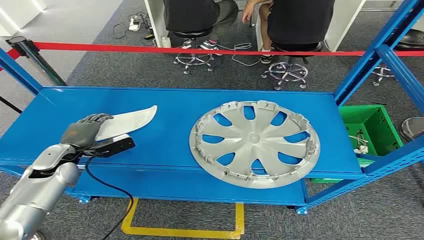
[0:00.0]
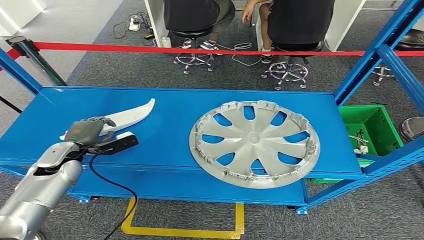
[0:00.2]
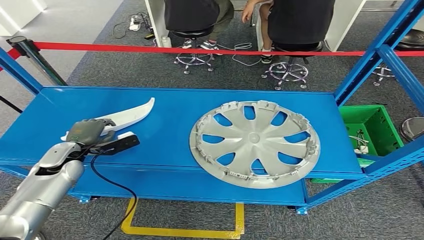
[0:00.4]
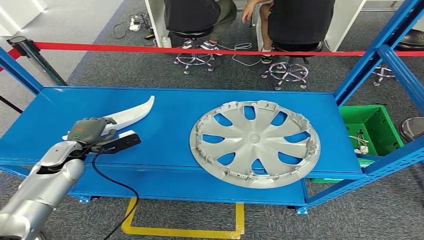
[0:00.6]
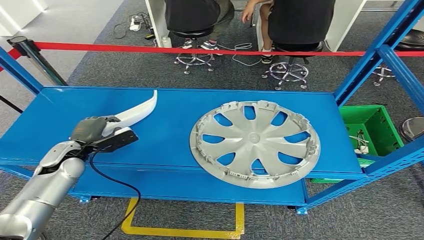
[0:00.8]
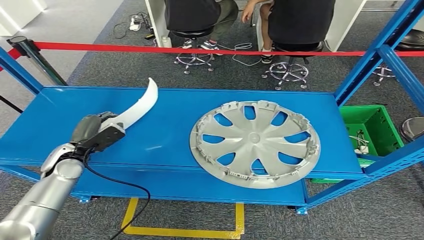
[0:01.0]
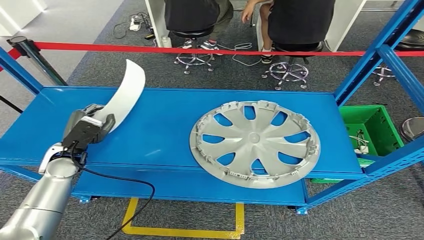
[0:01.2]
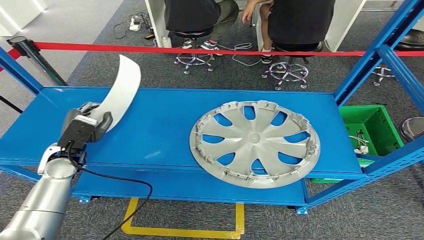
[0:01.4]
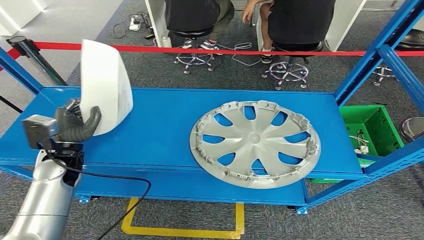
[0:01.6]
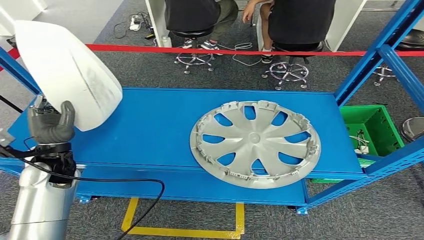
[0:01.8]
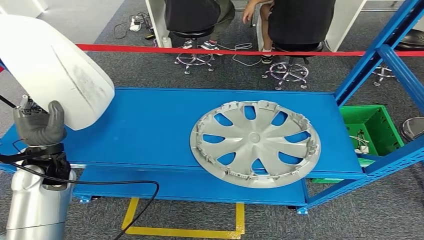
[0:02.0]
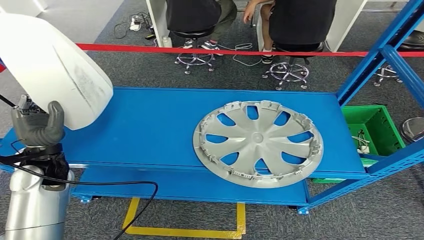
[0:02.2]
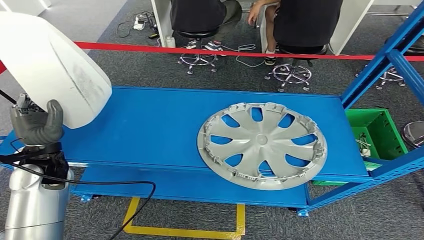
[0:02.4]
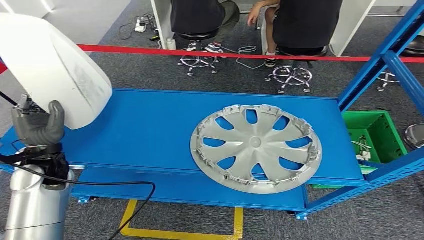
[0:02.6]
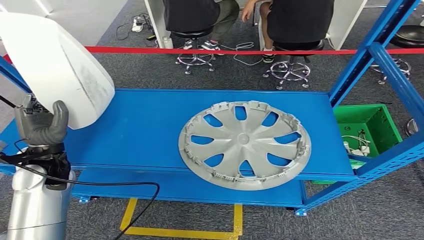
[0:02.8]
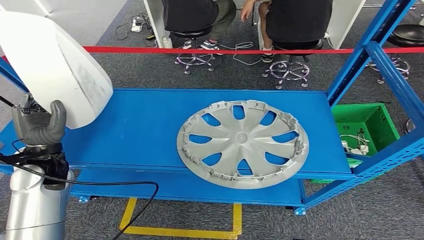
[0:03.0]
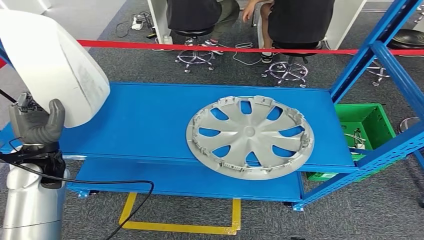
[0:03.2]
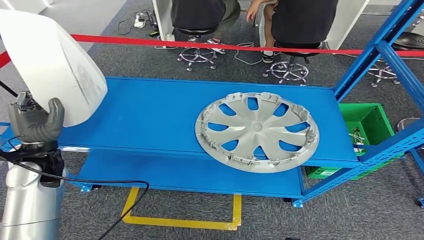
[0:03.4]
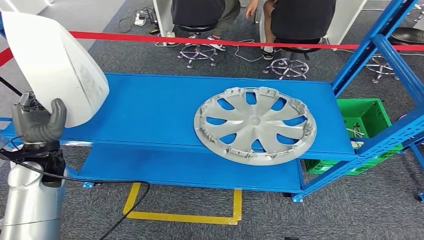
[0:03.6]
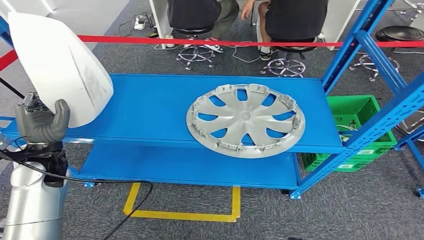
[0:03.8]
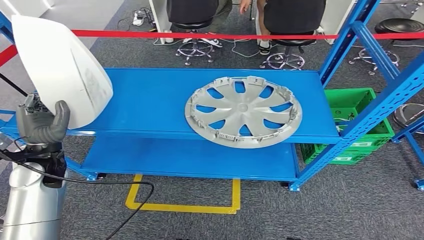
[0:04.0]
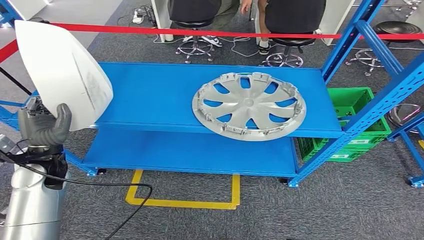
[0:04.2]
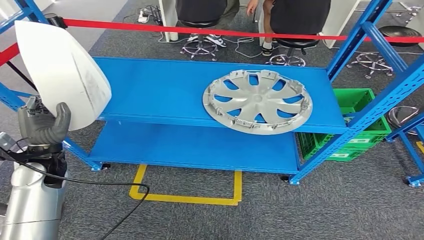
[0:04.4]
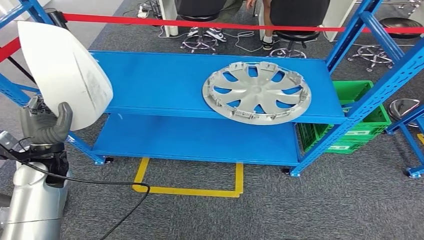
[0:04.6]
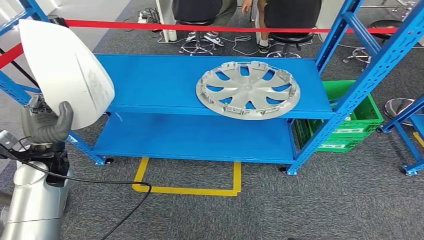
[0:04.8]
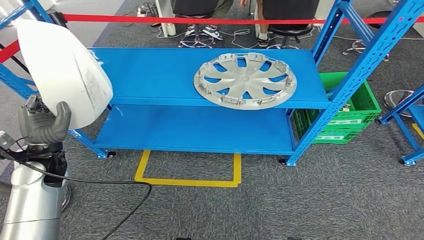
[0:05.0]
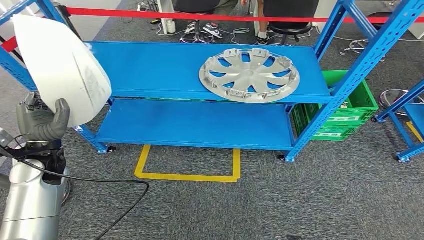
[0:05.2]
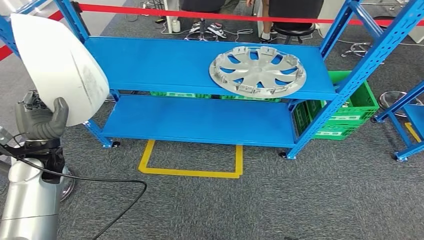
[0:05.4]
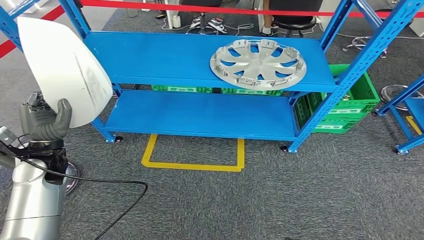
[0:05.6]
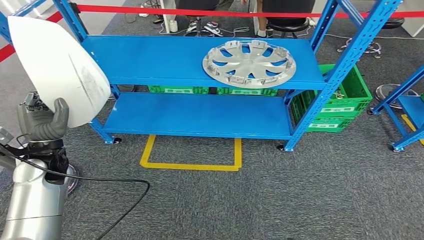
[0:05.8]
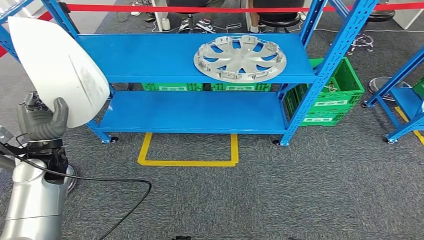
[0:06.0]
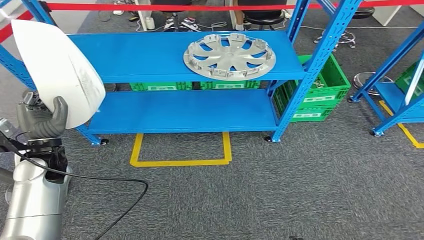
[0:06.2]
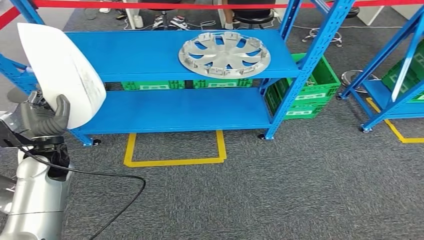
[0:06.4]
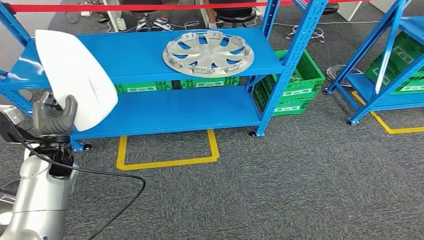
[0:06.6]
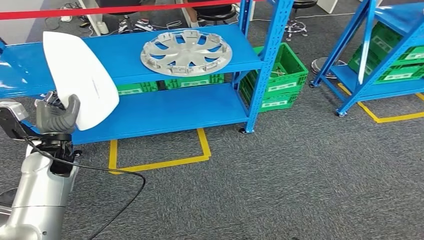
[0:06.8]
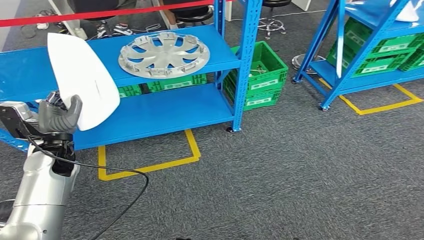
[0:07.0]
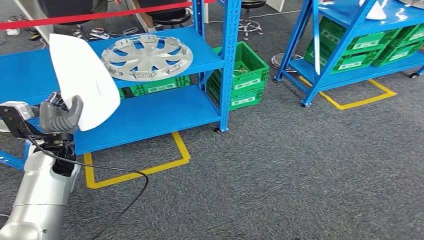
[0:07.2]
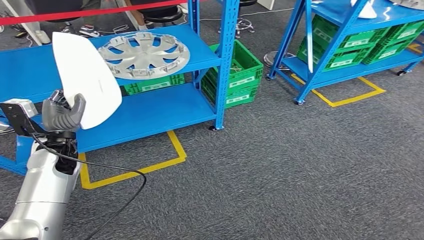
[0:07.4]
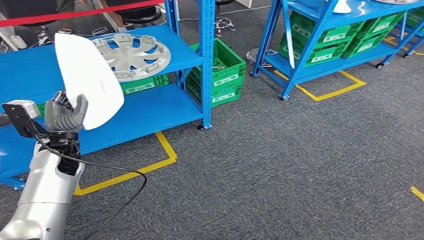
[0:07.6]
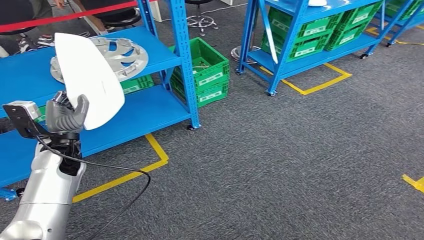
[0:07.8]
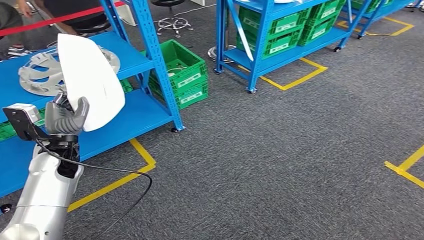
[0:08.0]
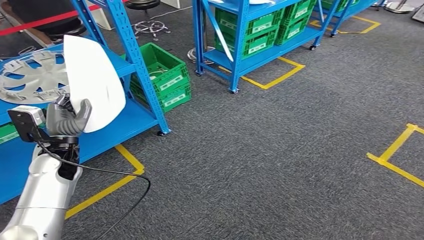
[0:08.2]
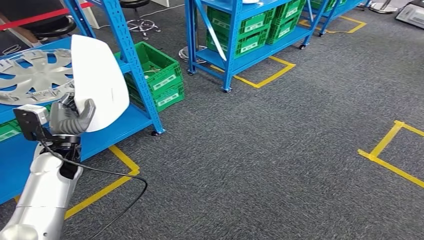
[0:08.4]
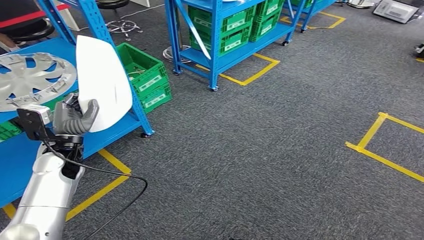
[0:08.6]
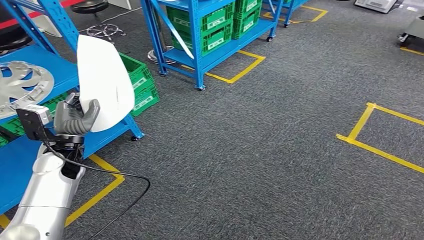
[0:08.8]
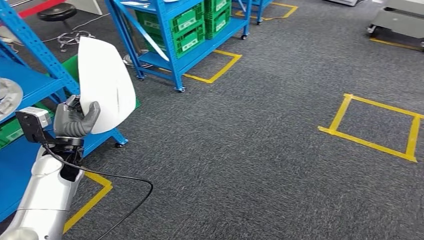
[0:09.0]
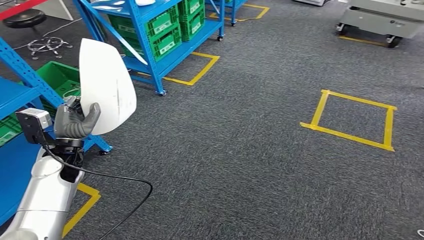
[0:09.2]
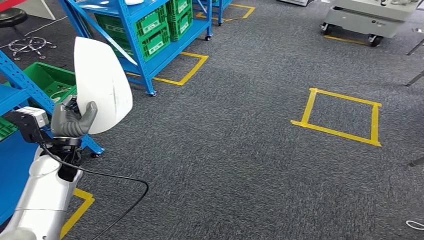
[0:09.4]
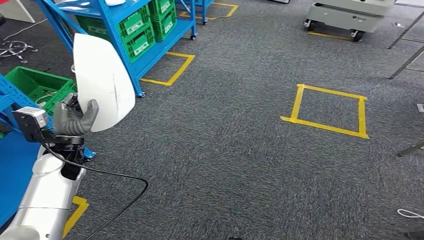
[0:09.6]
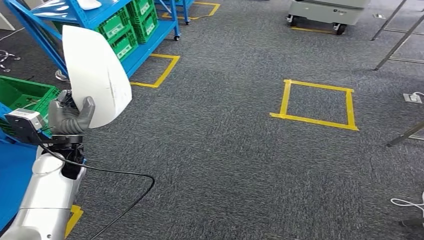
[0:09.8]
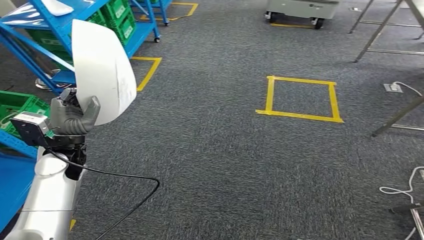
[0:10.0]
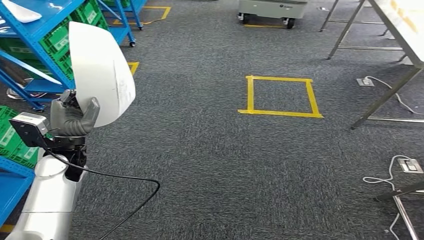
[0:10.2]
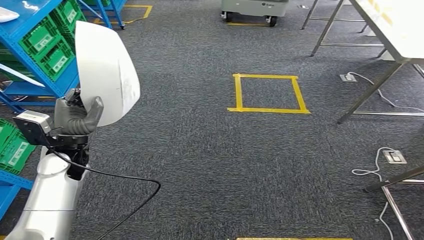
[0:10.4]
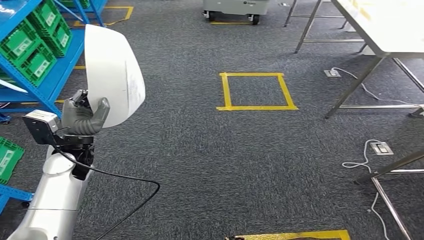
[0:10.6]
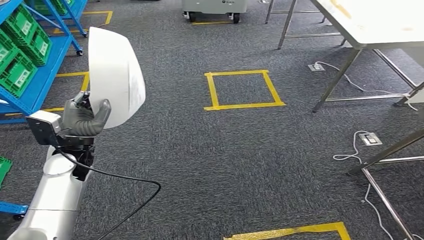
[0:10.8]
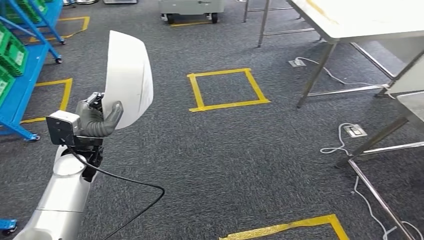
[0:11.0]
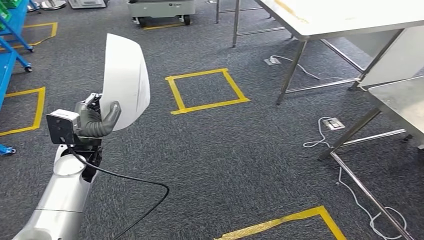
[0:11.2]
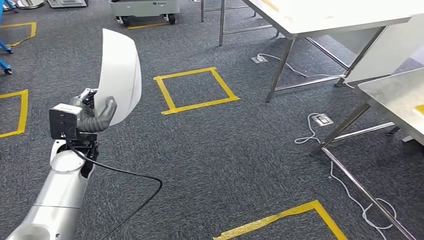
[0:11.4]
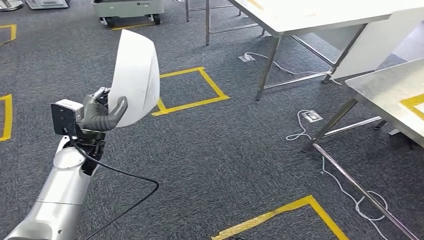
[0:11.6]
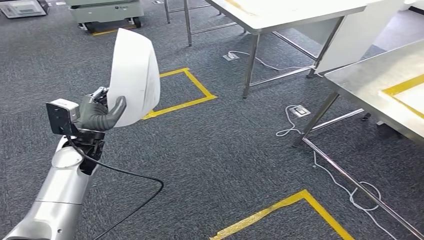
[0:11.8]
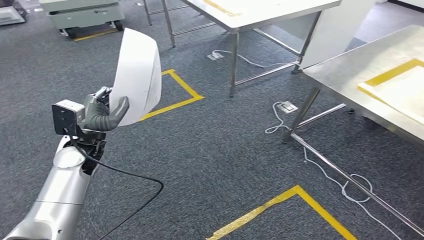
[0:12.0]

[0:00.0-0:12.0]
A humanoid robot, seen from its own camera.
Step, 0:00.0 to 0:03.2: Pick up the small component from the shelf.

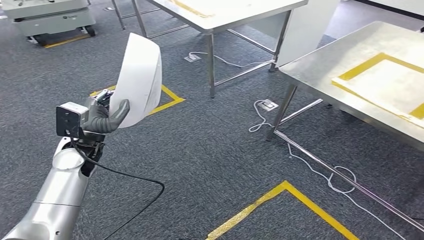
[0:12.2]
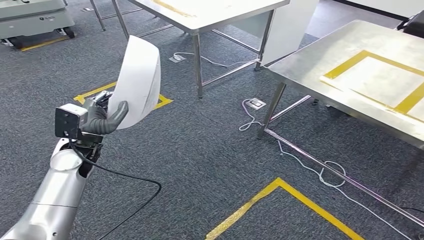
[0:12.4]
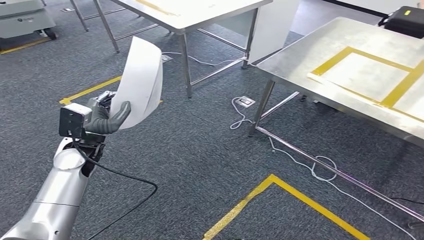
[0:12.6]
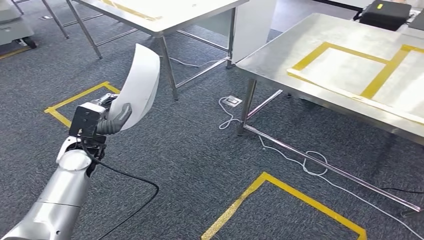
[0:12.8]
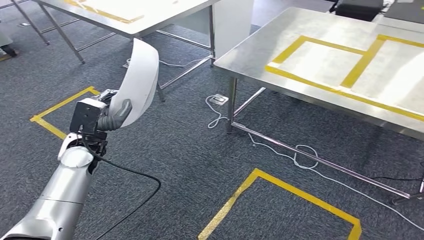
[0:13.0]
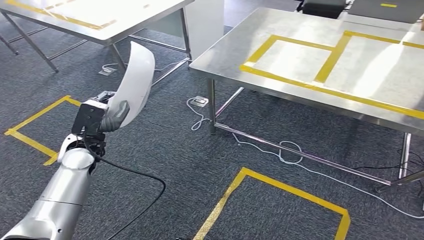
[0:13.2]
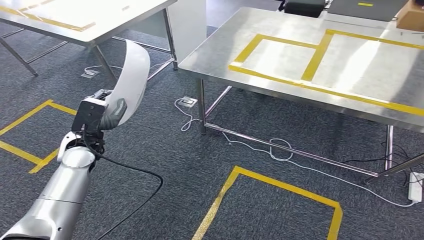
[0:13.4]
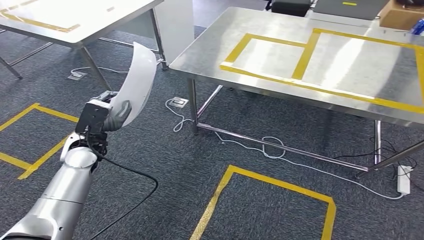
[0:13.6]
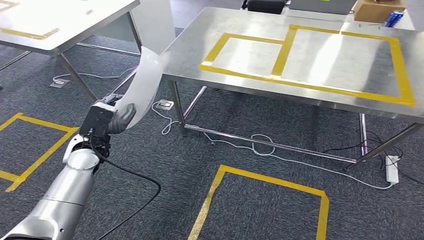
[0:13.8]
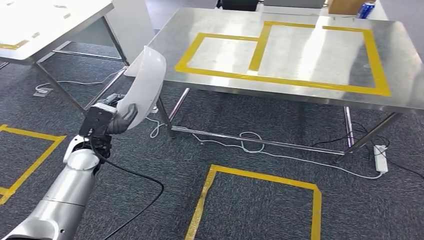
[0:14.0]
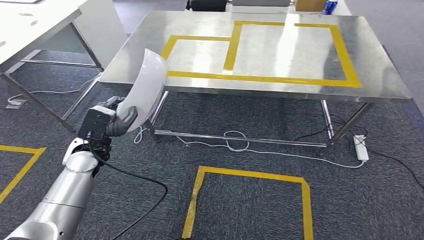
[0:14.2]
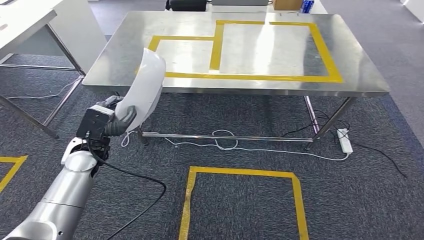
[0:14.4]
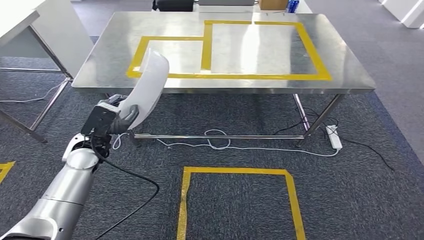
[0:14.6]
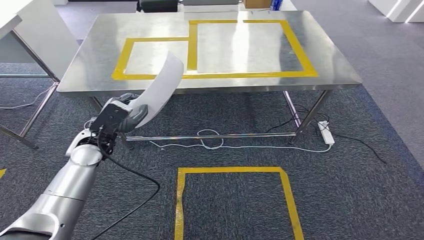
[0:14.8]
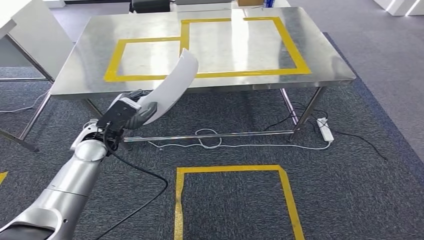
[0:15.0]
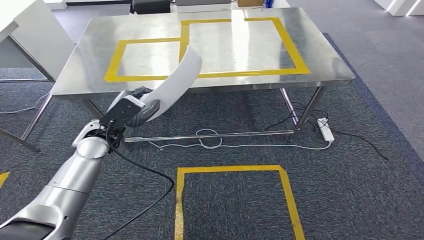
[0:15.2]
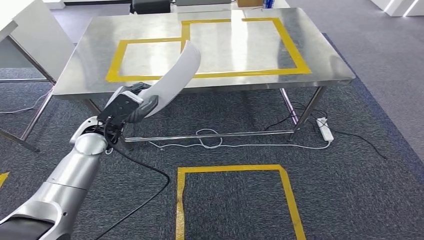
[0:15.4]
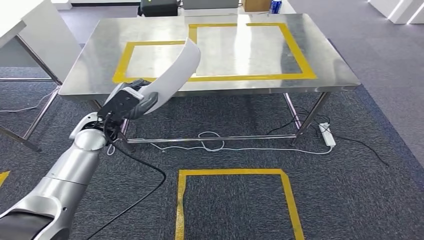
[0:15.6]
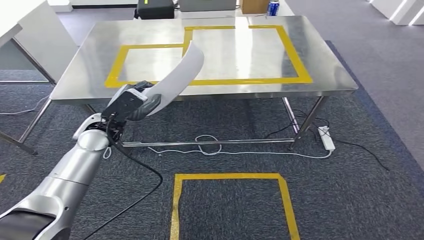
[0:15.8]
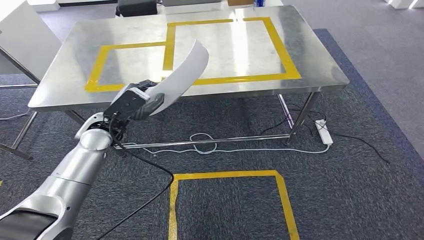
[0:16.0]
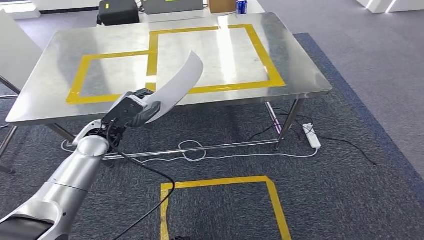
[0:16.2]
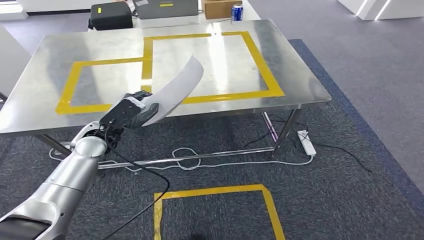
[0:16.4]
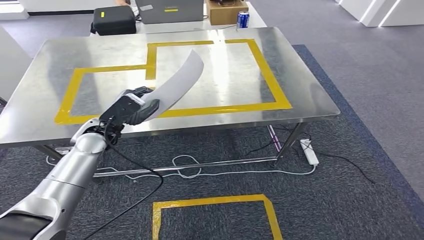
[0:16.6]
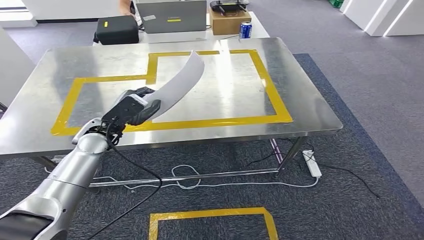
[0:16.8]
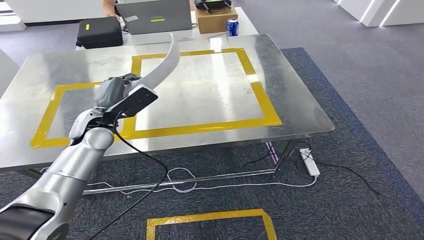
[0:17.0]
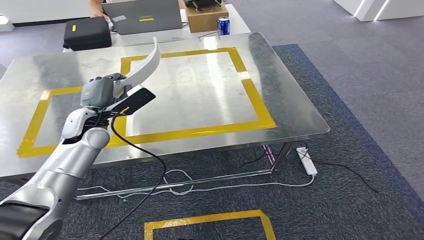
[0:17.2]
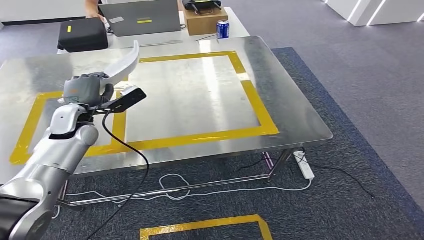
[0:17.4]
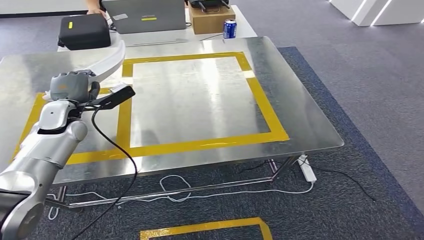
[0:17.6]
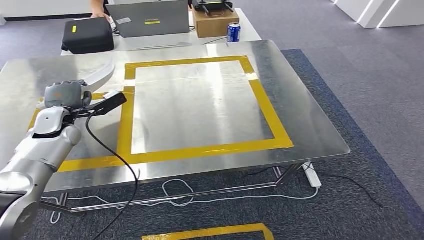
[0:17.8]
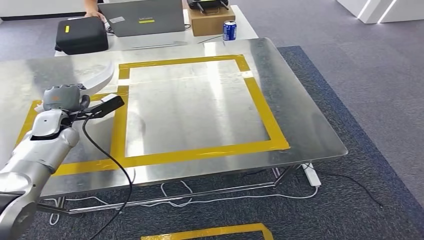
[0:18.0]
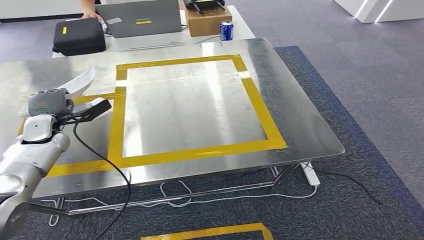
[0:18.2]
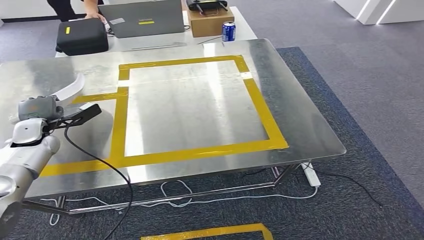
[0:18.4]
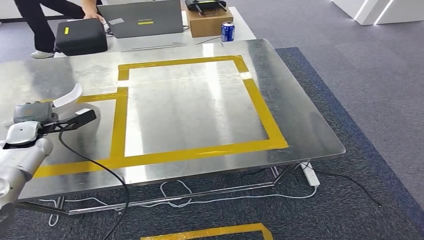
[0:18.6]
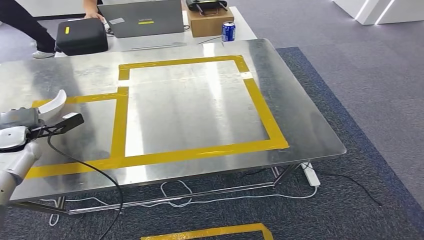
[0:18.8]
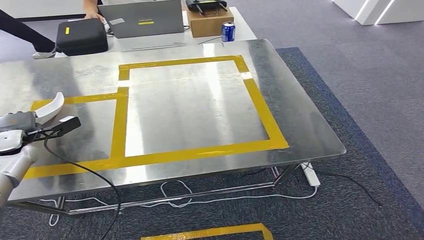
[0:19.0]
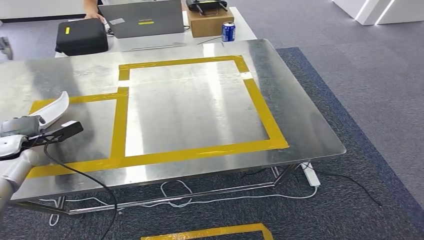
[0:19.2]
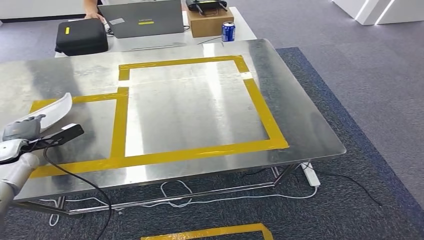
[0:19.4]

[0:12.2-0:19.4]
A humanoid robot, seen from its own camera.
0:18.0 to 0:19.4: The left hand moves to the left, downward and backward, roughly 15 cm.
